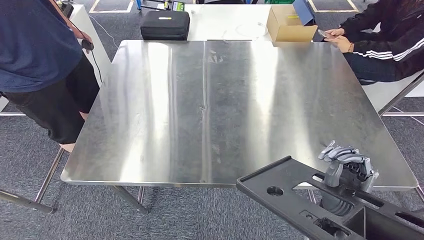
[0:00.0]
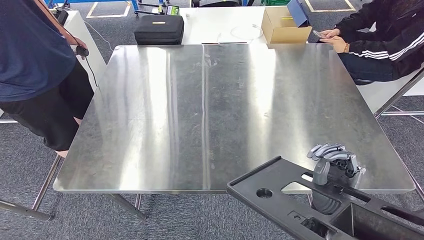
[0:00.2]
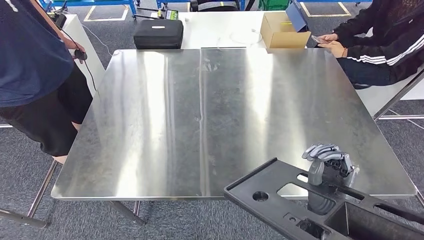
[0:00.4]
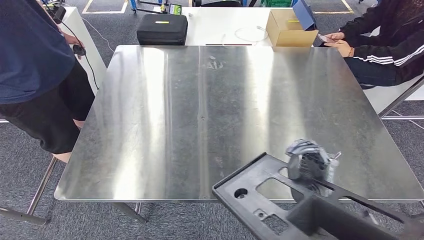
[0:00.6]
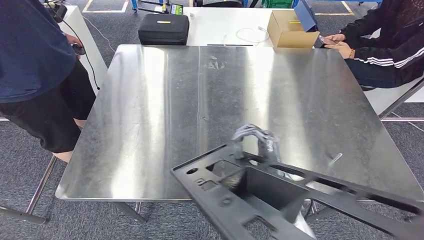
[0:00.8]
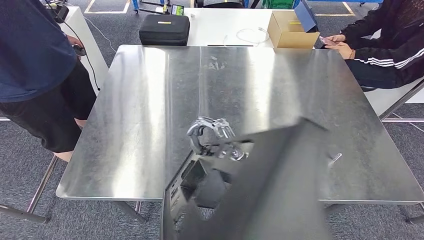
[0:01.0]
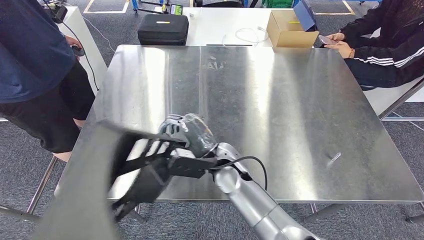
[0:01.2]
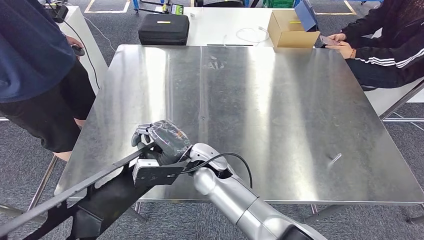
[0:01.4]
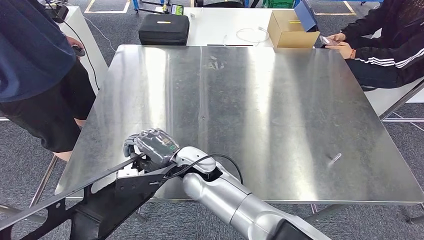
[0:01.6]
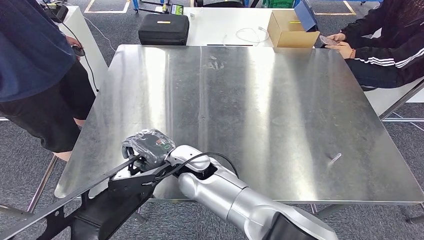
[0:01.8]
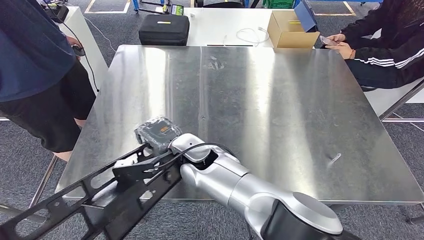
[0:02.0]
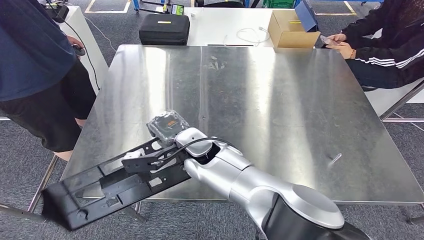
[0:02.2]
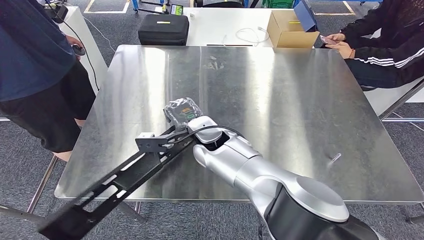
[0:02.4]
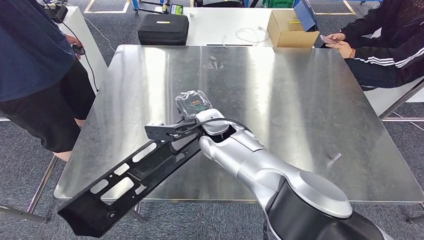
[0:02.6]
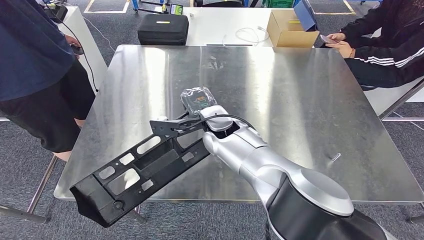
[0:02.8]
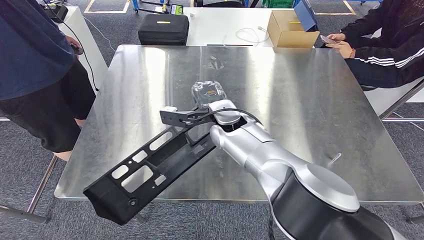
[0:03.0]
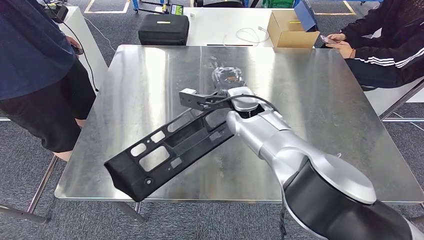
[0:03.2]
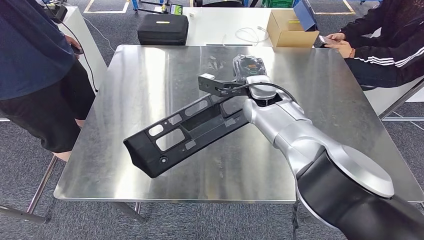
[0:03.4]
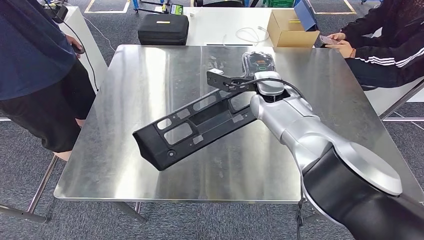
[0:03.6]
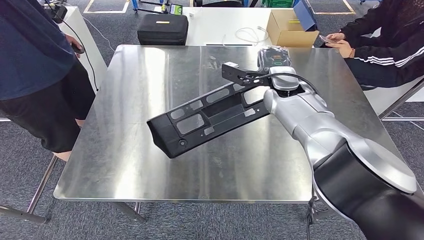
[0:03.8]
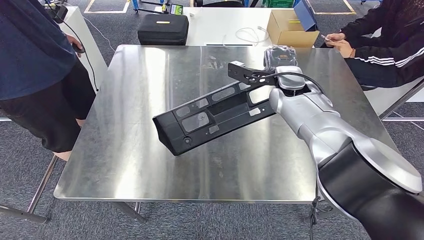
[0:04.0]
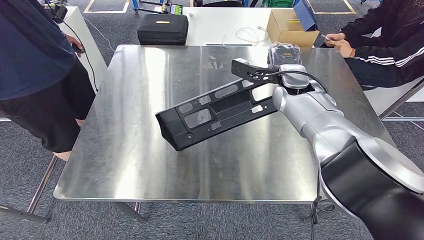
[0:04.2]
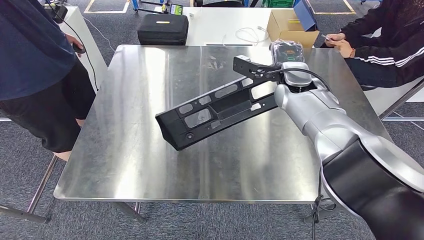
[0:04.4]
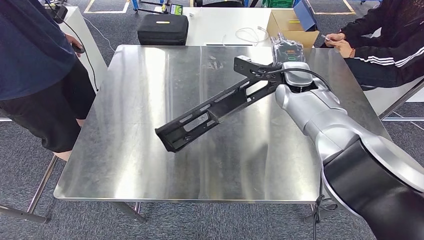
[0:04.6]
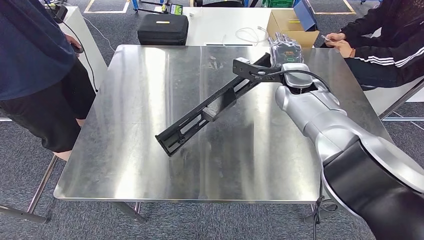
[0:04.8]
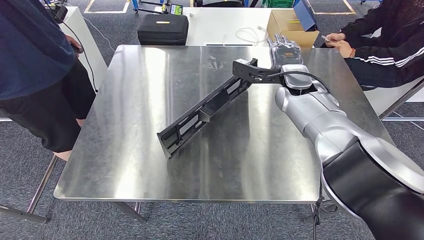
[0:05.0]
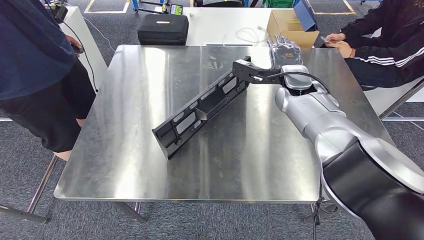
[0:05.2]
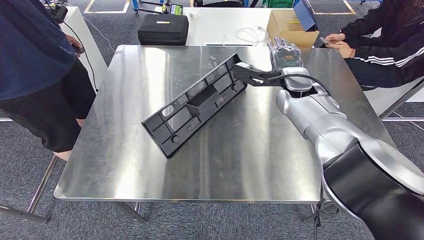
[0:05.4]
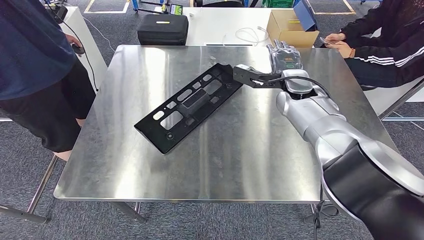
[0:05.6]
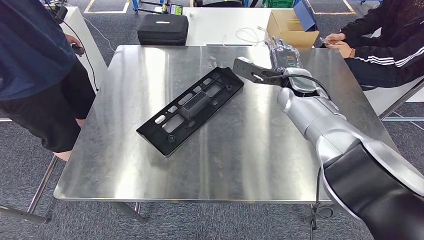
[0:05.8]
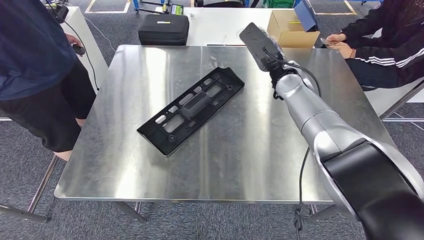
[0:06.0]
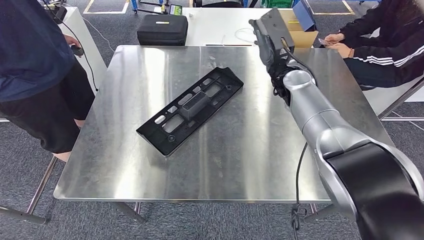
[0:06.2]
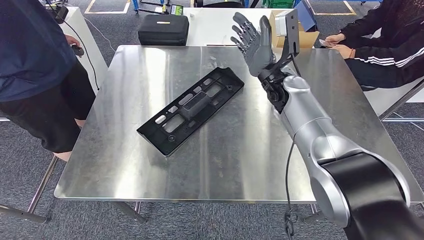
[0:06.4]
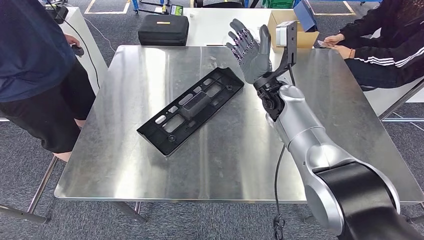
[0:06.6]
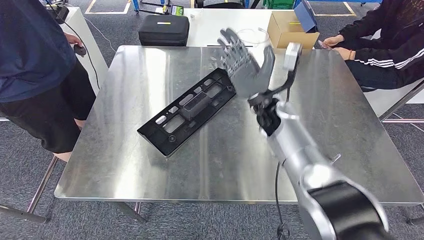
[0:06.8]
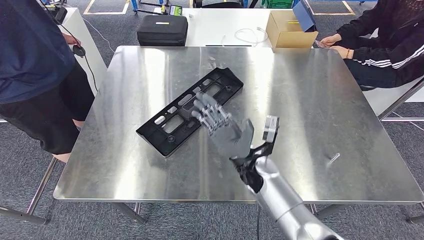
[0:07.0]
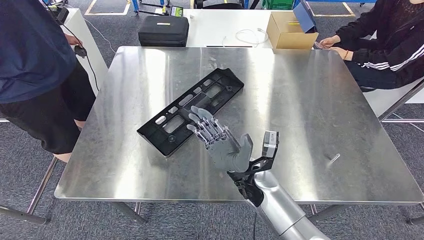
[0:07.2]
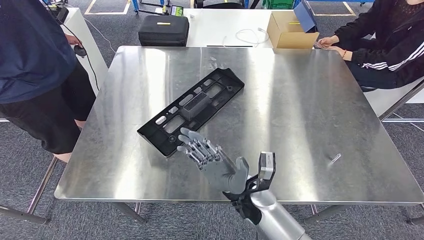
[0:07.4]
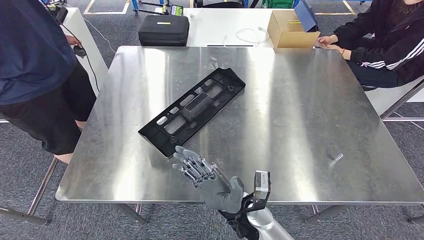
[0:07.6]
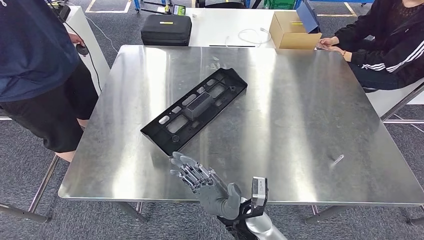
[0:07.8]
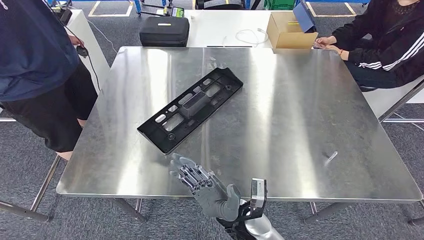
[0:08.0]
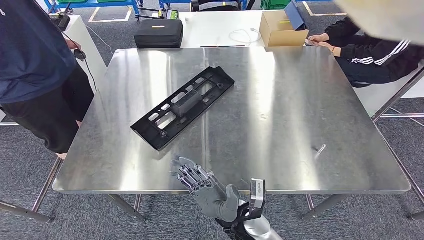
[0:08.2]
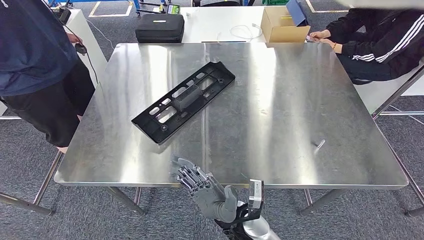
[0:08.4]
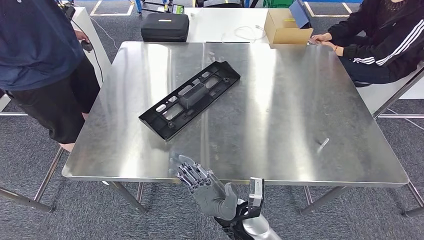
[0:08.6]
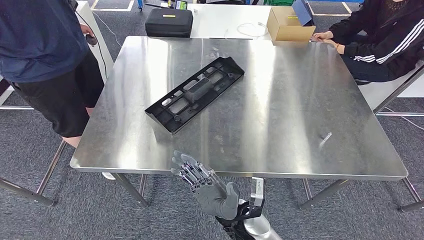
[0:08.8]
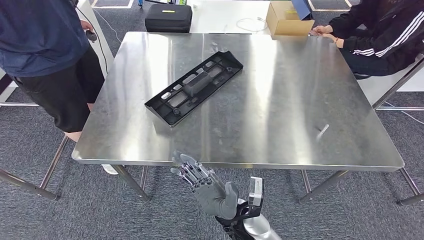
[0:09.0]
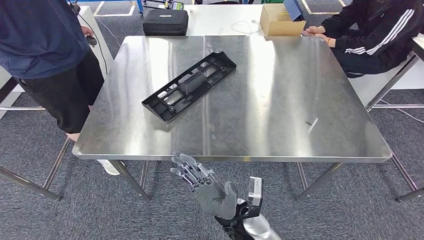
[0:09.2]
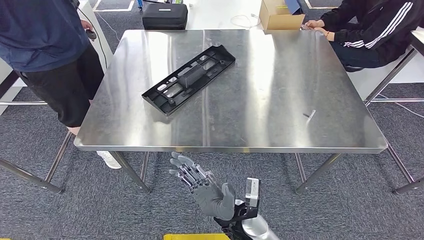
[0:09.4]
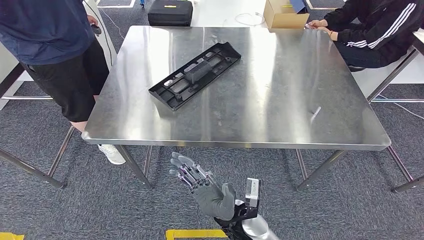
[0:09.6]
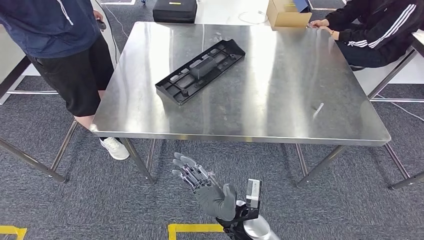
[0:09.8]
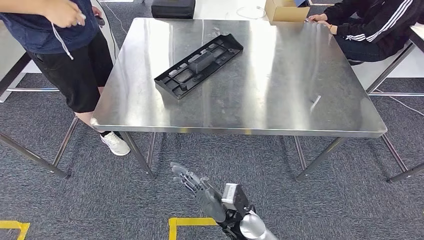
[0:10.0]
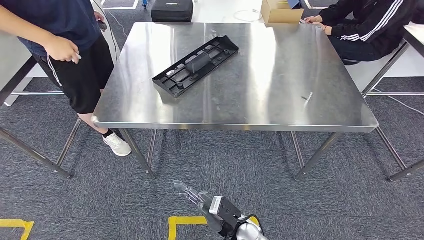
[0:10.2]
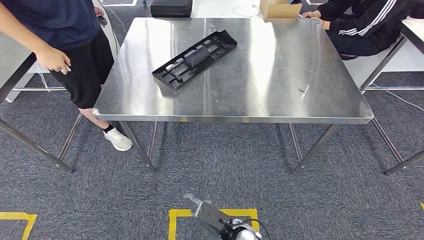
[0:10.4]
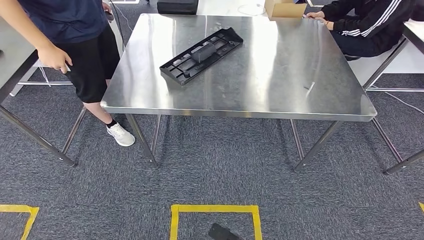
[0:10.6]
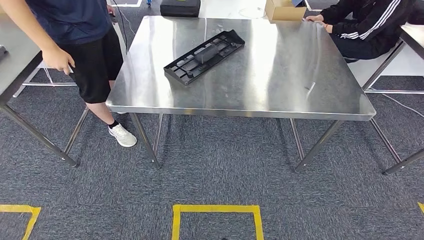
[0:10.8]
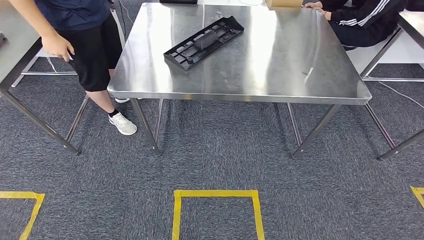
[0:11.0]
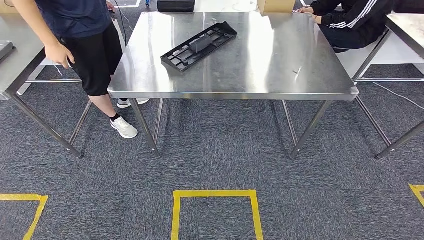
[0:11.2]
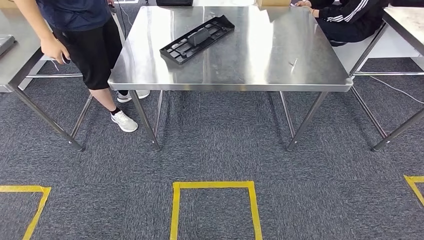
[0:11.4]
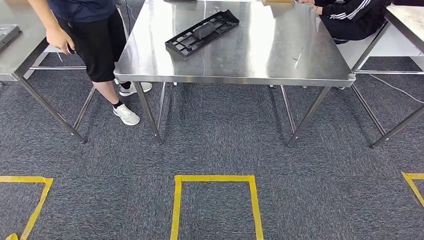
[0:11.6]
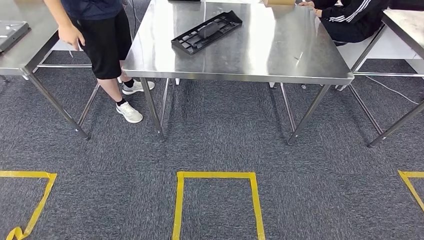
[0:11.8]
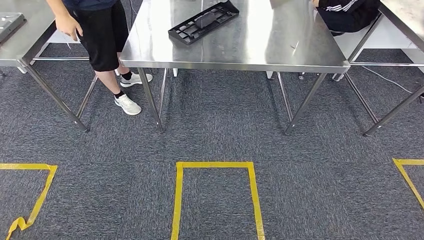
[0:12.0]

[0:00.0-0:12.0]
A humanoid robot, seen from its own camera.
Step, 0:00.4 to 0:06.8: Insert the large material into the corresponding hole on the workbench.

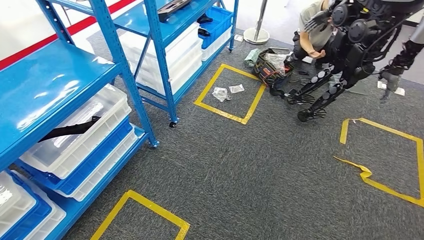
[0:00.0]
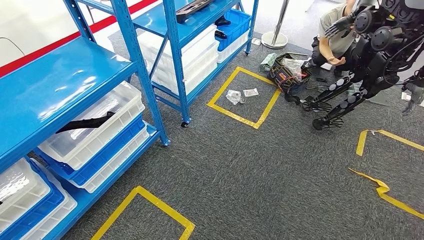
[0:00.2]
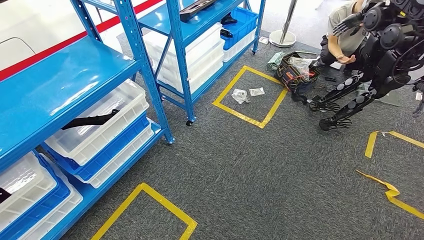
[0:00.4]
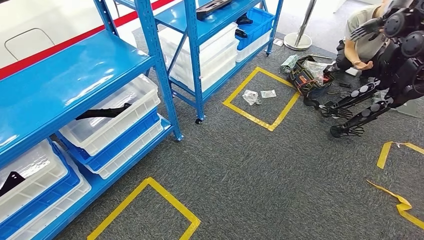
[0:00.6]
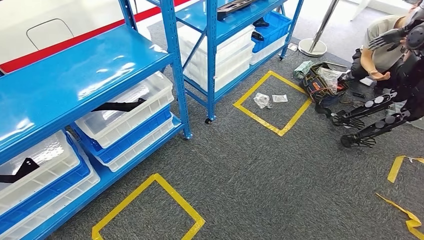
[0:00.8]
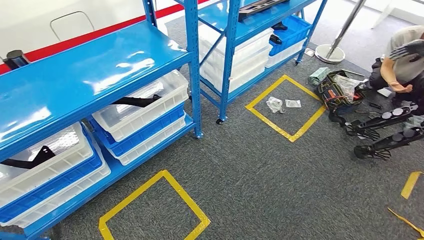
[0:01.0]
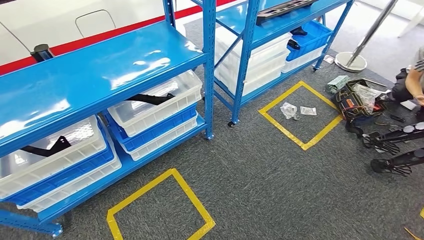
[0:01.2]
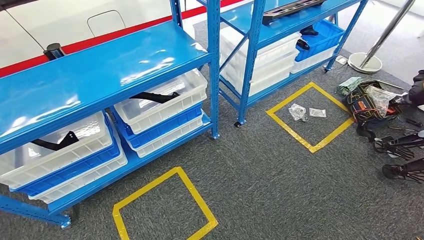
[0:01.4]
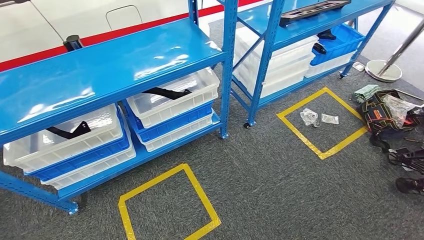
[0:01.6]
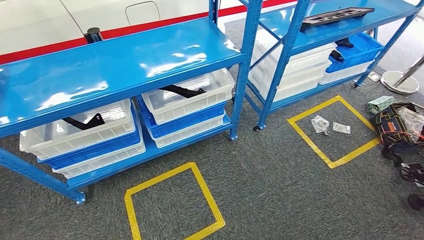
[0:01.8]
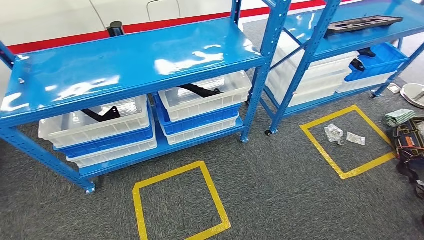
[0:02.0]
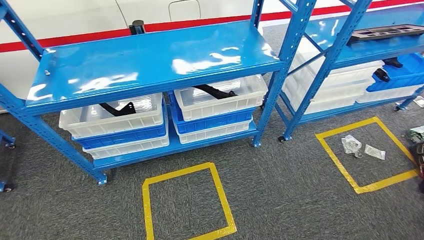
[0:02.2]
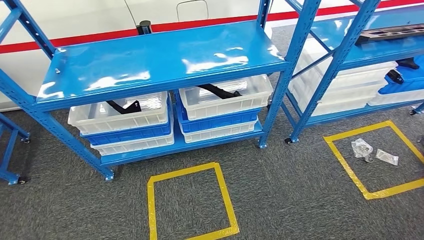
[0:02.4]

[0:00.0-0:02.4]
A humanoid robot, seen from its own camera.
Step, 0:00.0 to 0:02.4: Move to the initial position of the shelf.

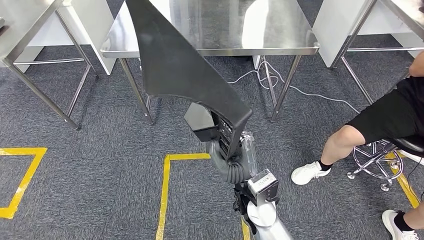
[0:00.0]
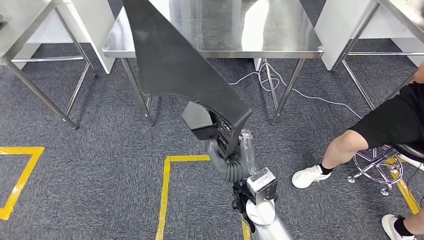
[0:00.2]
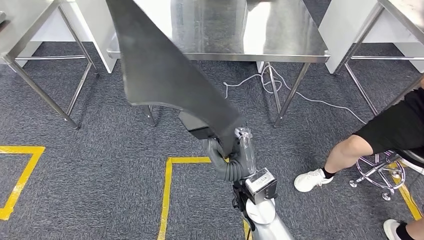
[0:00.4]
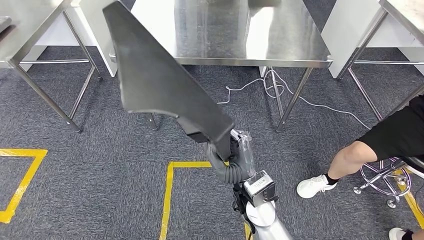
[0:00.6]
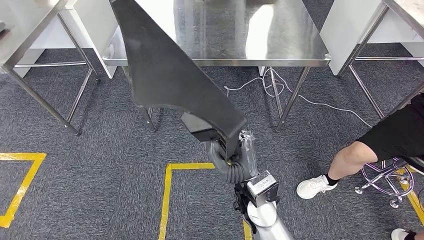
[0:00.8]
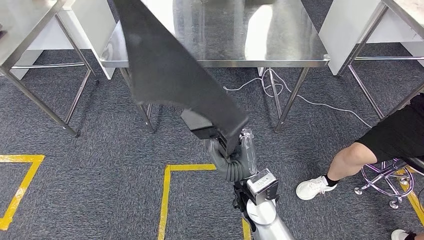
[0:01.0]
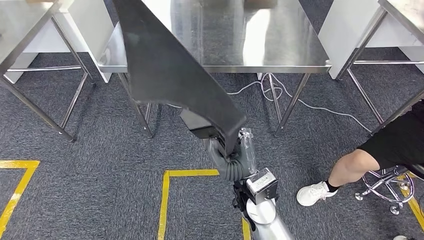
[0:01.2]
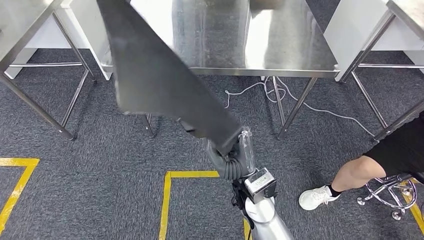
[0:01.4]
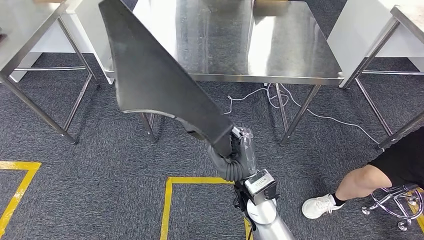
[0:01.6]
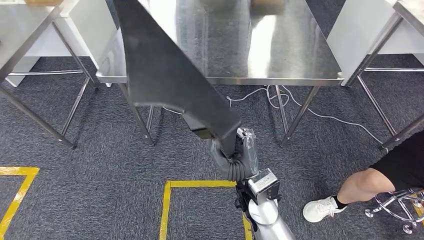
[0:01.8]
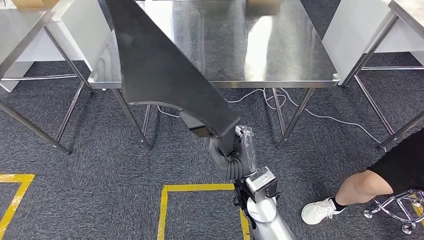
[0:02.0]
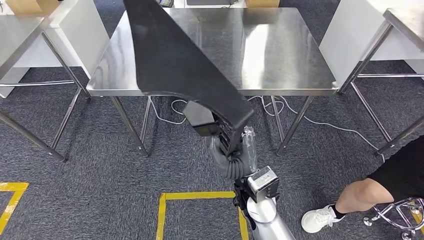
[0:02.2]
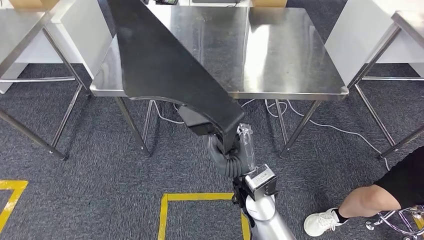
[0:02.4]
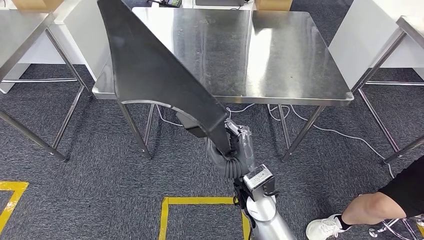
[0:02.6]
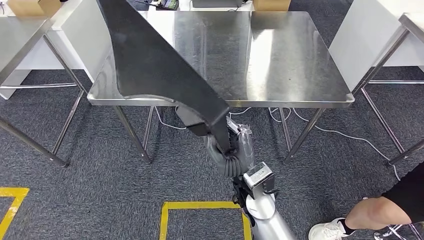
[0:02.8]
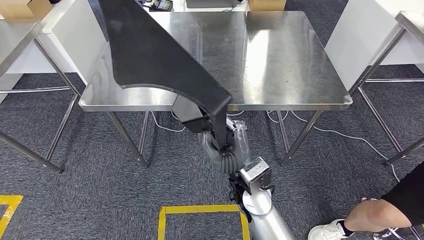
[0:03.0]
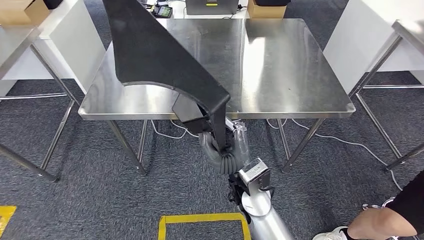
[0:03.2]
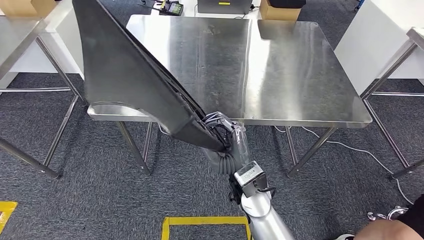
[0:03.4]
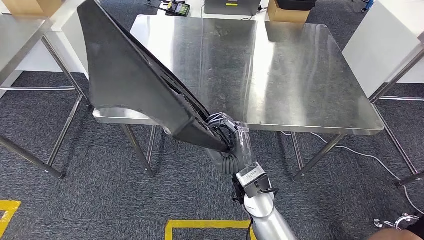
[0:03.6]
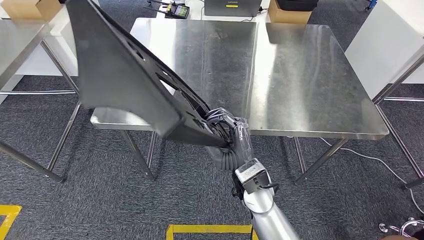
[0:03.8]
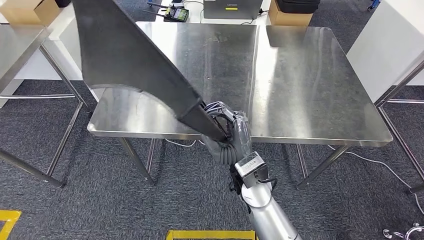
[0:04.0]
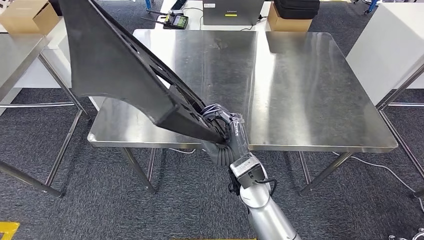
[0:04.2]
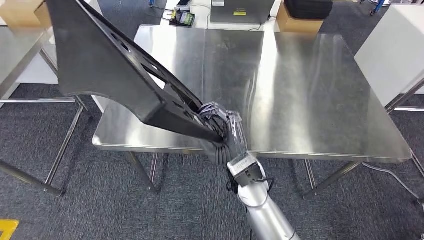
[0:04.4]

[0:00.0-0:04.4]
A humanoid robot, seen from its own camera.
Step, 0:00.0 to 0:03.4: Move the large material to the front of the workbench.
